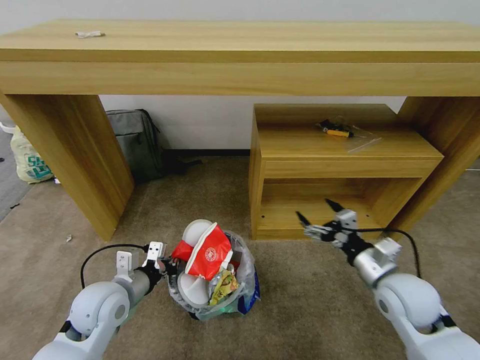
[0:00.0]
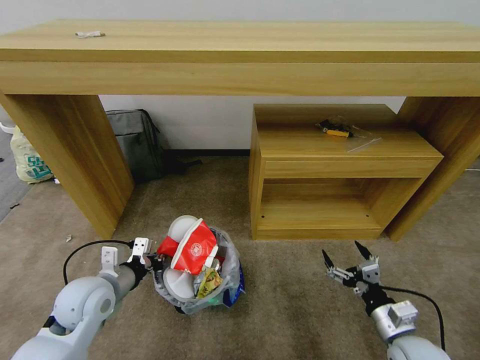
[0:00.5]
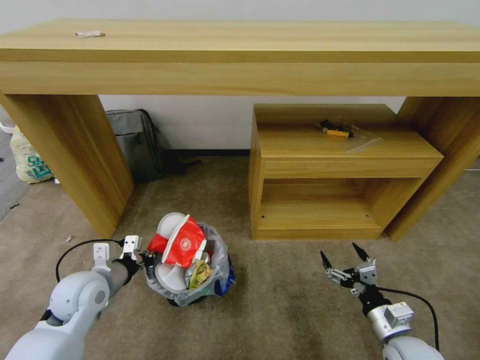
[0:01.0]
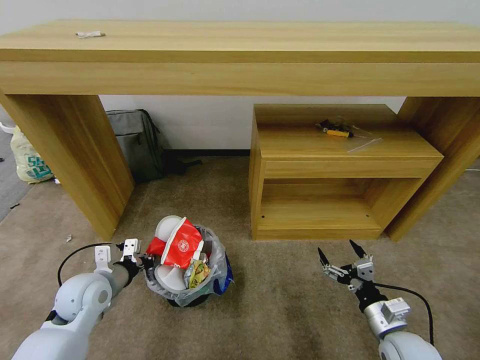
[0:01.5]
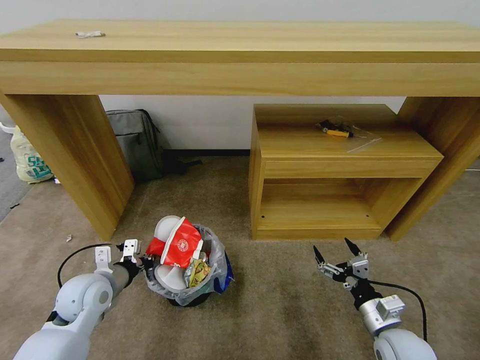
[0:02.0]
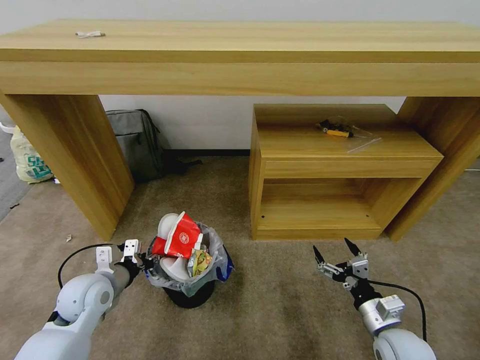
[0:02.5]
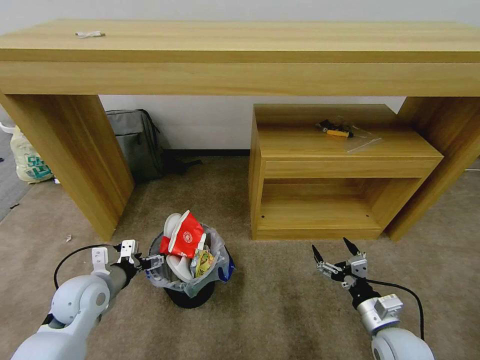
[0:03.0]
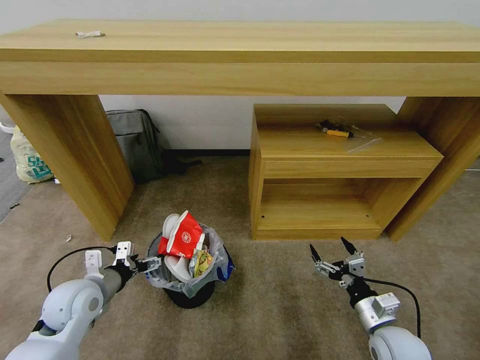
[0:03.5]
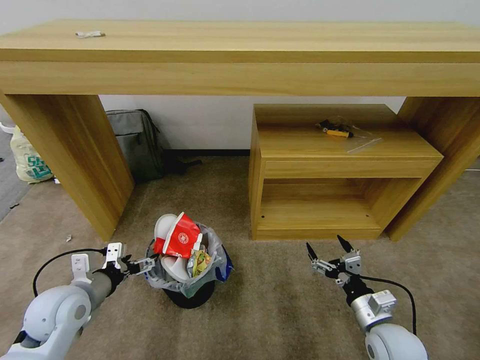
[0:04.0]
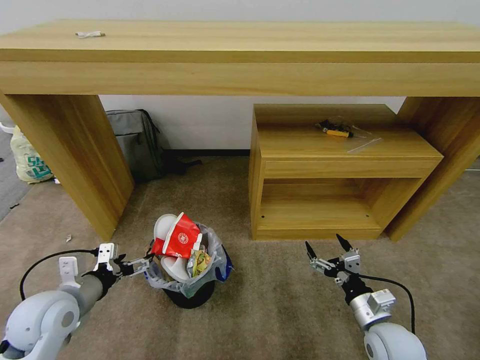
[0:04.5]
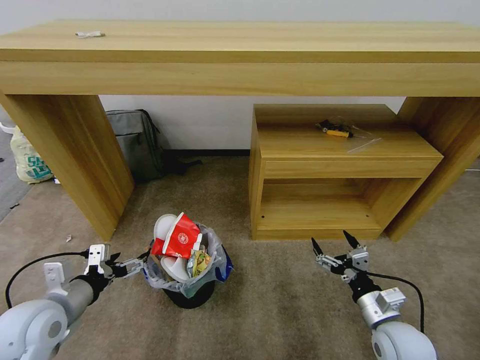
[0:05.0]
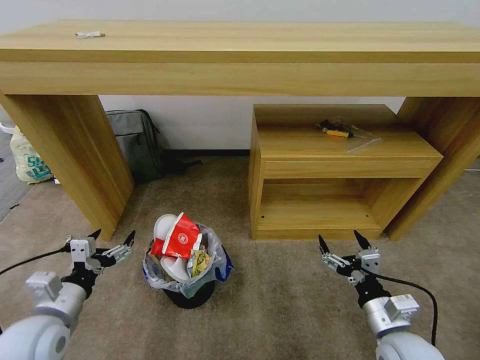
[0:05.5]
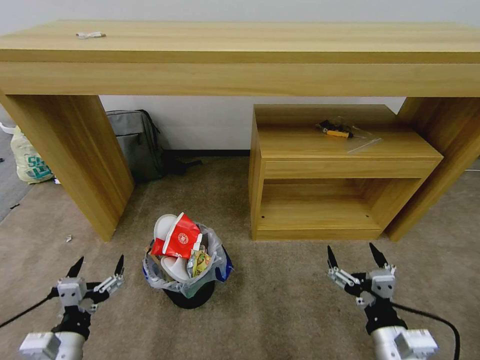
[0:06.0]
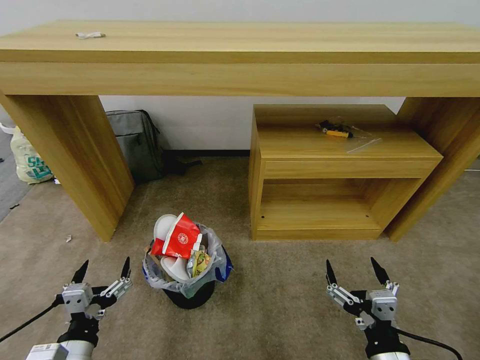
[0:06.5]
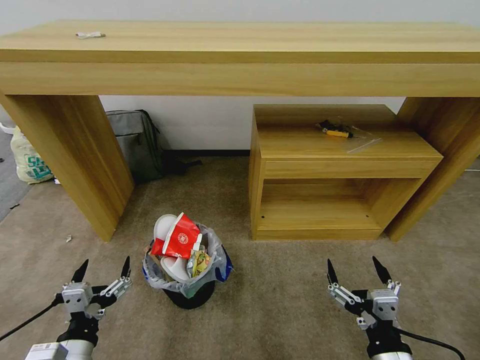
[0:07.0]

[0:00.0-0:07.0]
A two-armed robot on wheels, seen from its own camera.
Task of the whole recording: Pick up the trash bin and place the garbage on the floor into it.
0:00.0 to 0:02.0: The right gripper moves downward and backward, about 10 cm. Meanwhile the left gripper goes approximately 5 cm to the left.
0:02.0 to 0:03.5: The left gripper opens up.
0:03.5 to 0:05.0: The left gripper heads backward, covering about 5 cm.
0:05.0 to 0:07.0: The left gripper is displaced backward, downward and to the right by some 15 cm. The right gripper moves backward, to the left and upward, approximately 15 cm.
